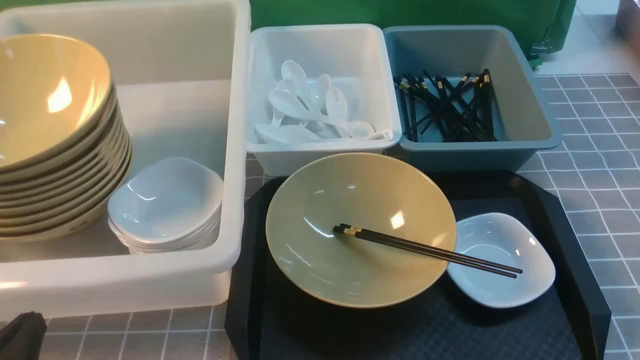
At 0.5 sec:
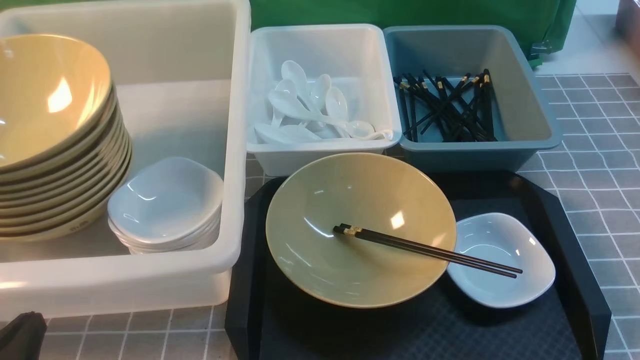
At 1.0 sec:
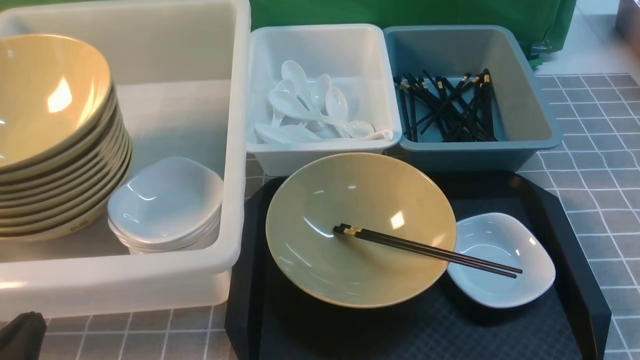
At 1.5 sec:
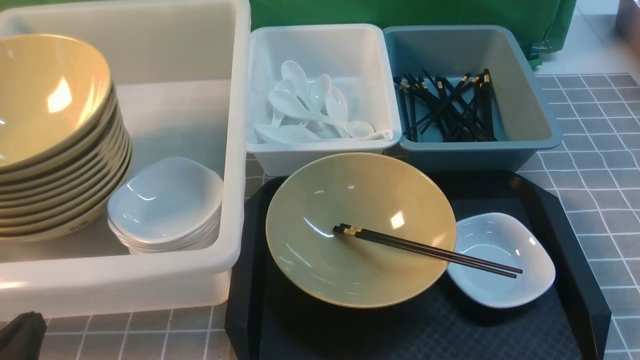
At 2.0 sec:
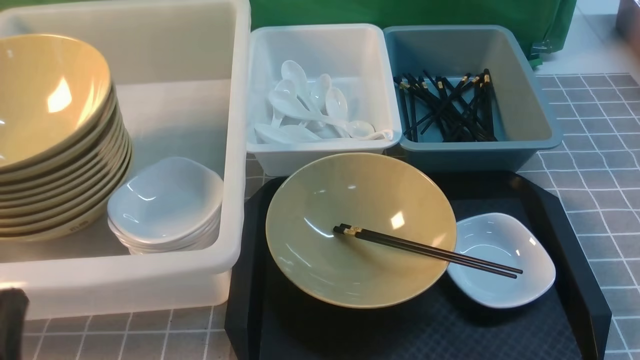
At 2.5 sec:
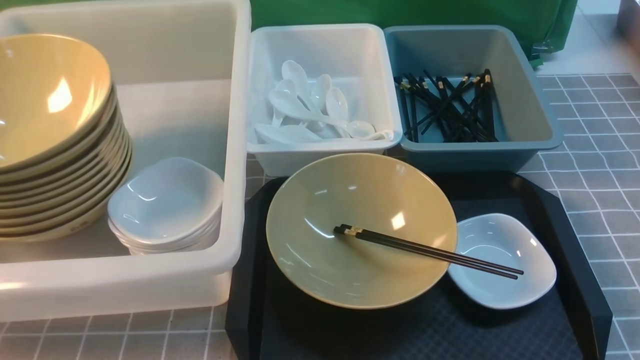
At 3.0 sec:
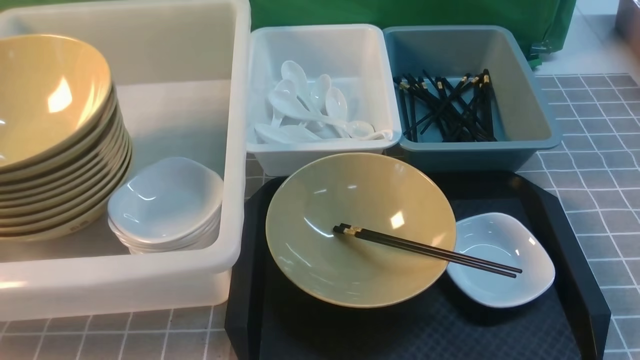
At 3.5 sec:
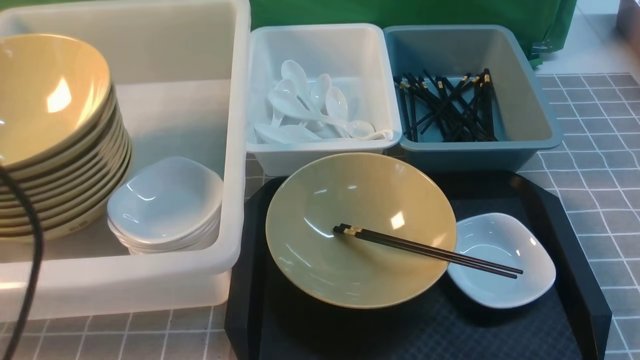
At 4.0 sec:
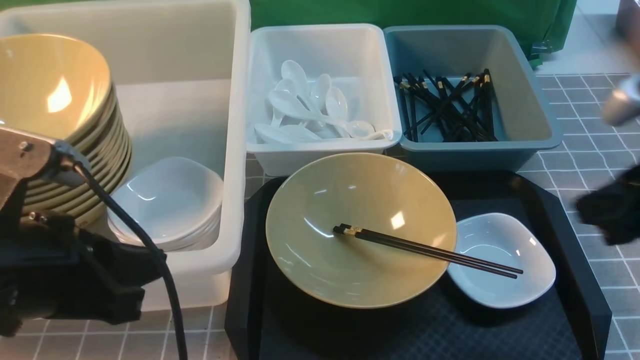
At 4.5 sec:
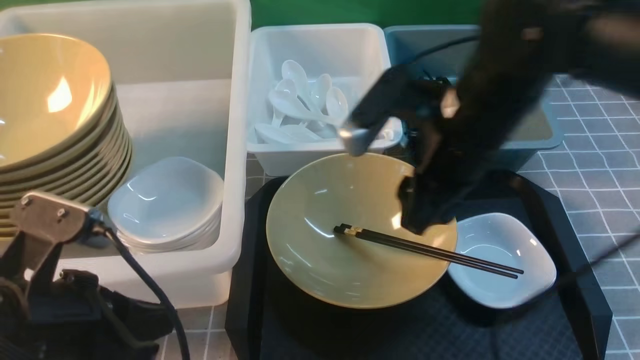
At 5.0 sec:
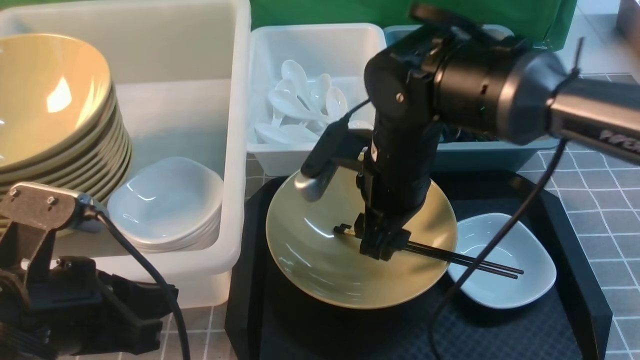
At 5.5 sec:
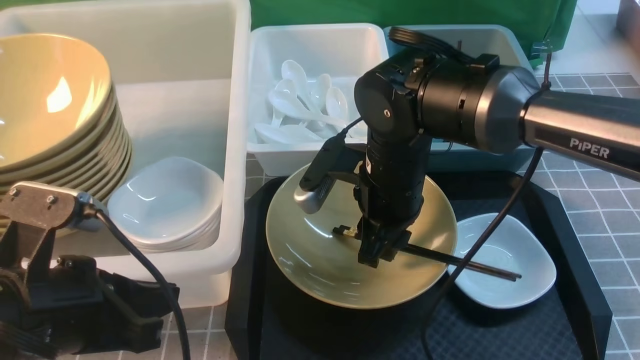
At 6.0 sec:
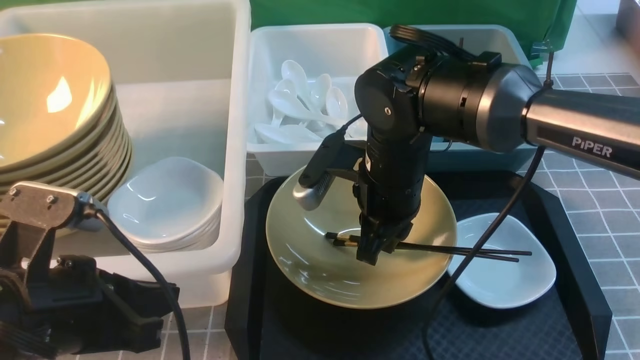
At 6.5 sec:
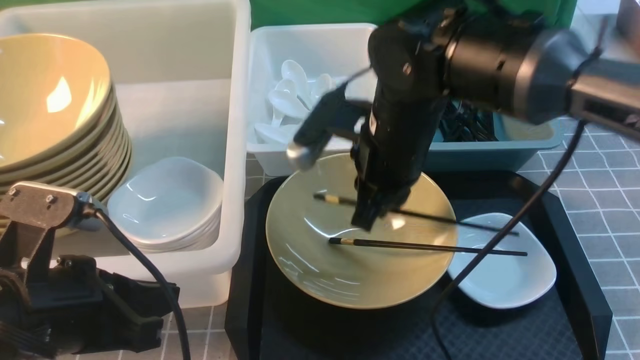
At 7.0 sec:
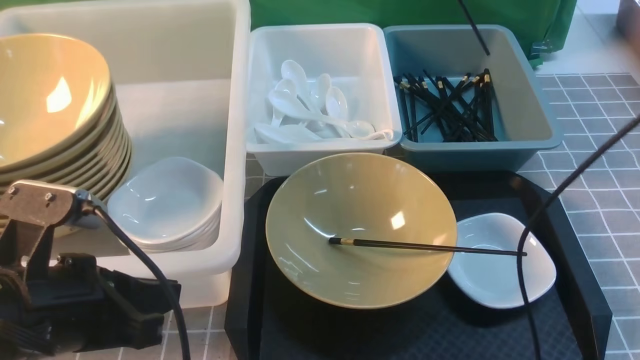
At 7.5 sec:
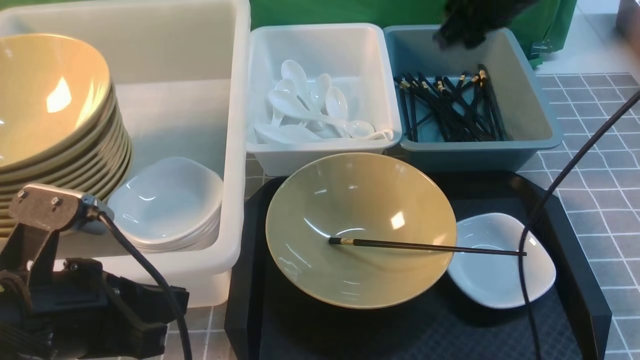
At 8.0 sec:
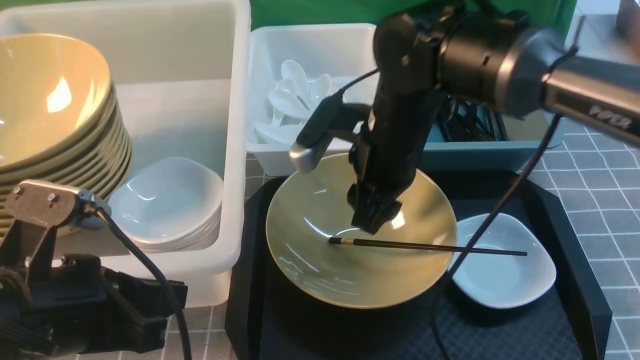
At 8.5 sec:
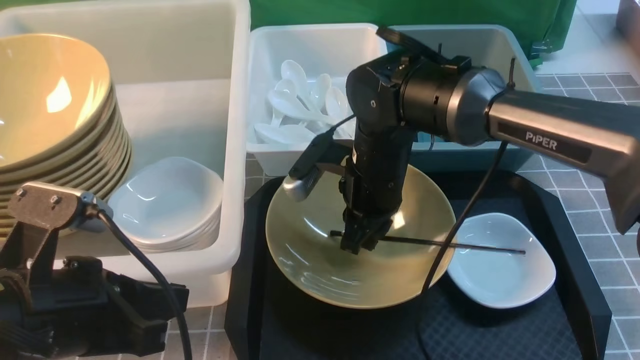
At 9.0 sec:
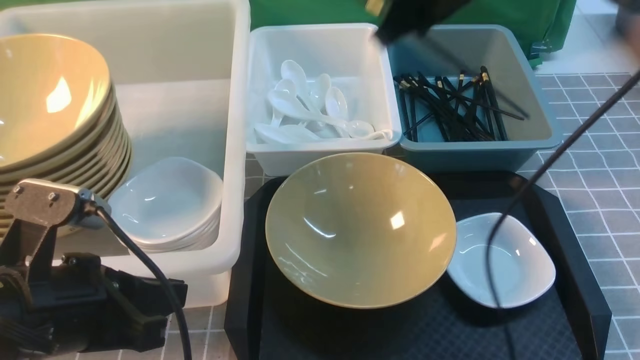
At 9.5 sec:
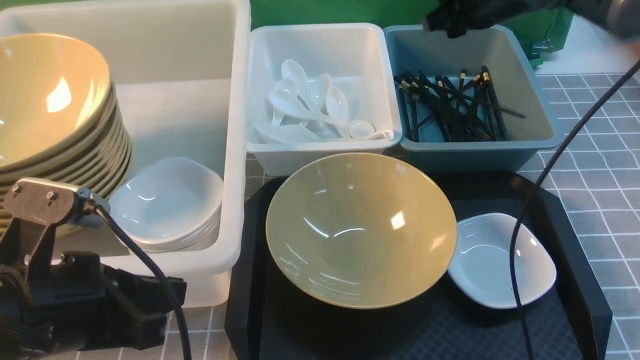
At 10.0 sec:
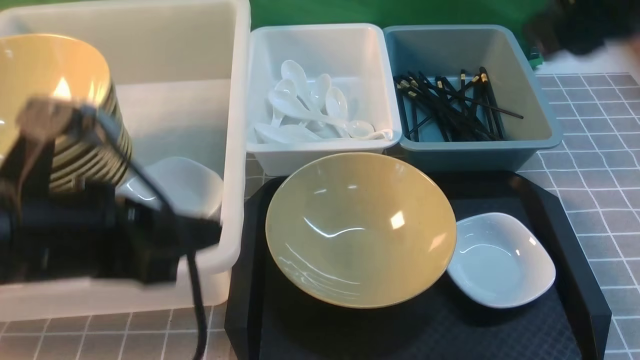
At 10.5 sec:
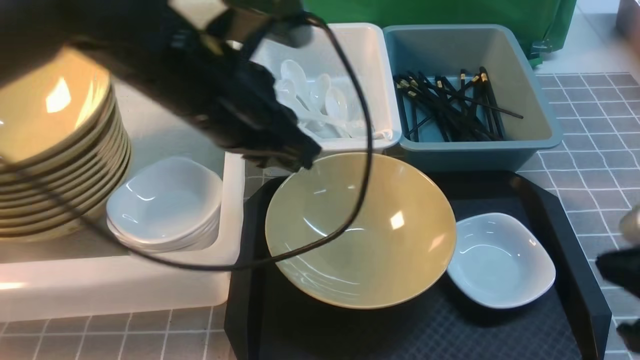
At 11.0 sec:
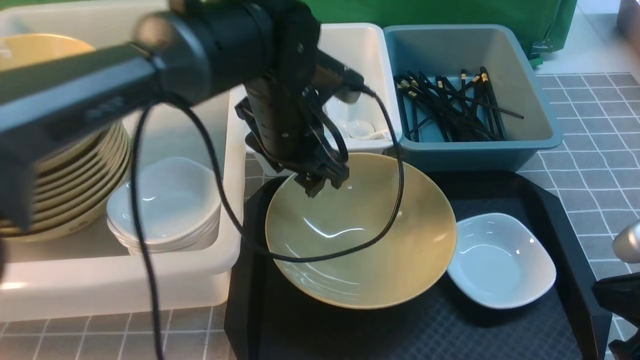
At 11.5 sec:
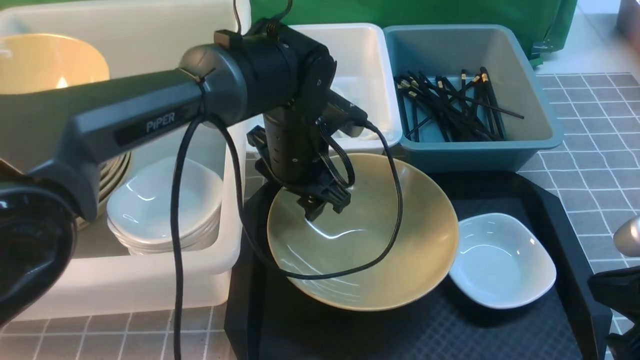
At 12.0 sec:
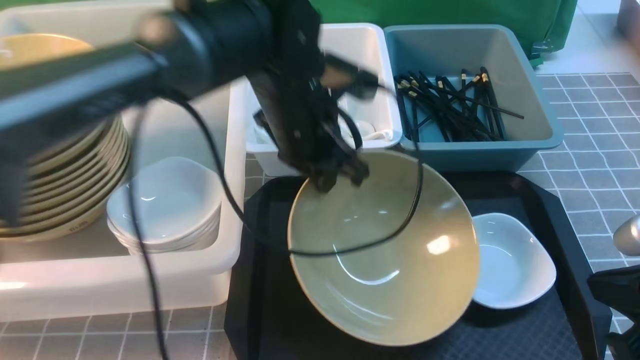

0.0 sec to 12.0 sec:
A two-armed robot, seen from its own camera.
Task of the whole recording: on grey table put chopsticks spoon bowls plates into blue grey white boxes.
Step, 0.0 sec to 6.5 sec: use the right arm to grab a chopstick.
Step, 7.0 sec to 7.5 sec: use the right arm to put a chopstick into the small storage box on the right.
Step, 8.0 sec to 8.5 sec: use the right arm to grab a chopstick.
Step, 9.0 sec to 9.5 sec: use the right arm to put a chopstick into the small storage box on the right.
2.0 sec to 4.0 sec: The right gripper is displaced forward, upward and to the left by roughly 20 cm, and closes. Meanwhile the left gripper shifts some 15 cm upward, forward and to the right.
4.0 sec to 6.0 sec: The right gripper heads to the left, forward and downward, covering about 25 cm, and opens, then closes once more.
6.0 sec to 8.0 sec: The right gripper reaches approximately 15 cm upward, then returns, and opens up.
8.0 sec to 10.0 sec: The right gripper is displaced to the right, upward and backward by roughly 25 cm, and closes, then opens again; the left gripper shifts some 5 cm upward.
10.0 sec to 12.0 sec: The right gripper moves downward and backward, some 20 cm, and closes its fingers. Meanwhile the left gripper shifts roughly 20 cm forward and to the right, and opens, then closes once more.

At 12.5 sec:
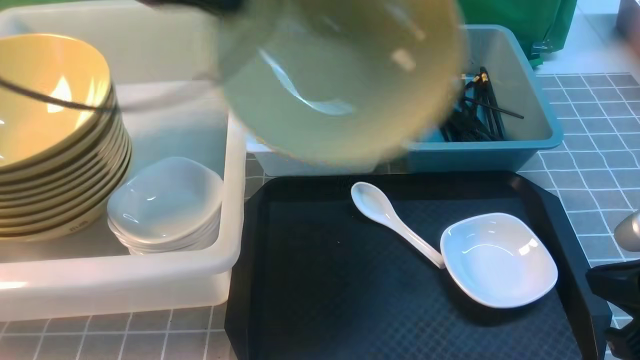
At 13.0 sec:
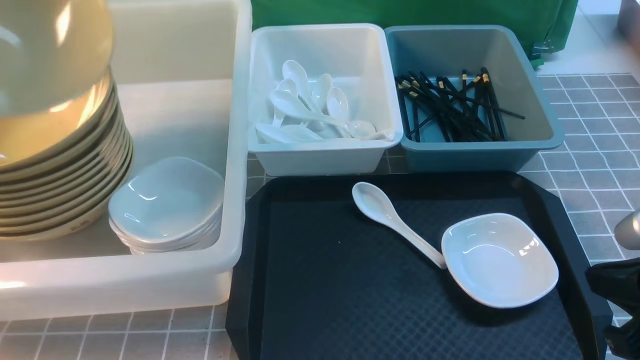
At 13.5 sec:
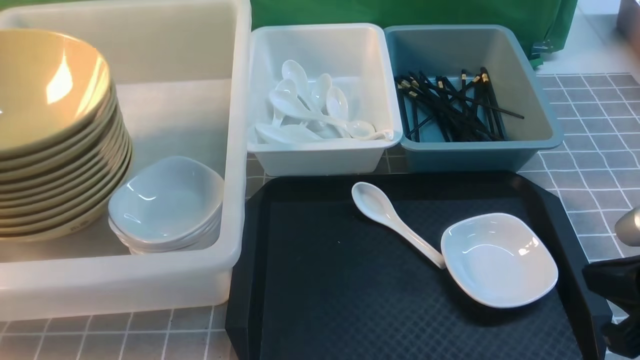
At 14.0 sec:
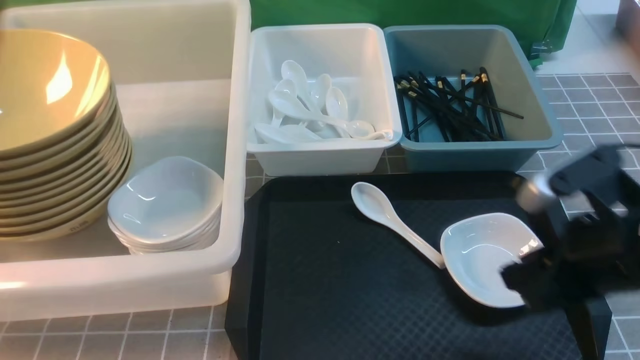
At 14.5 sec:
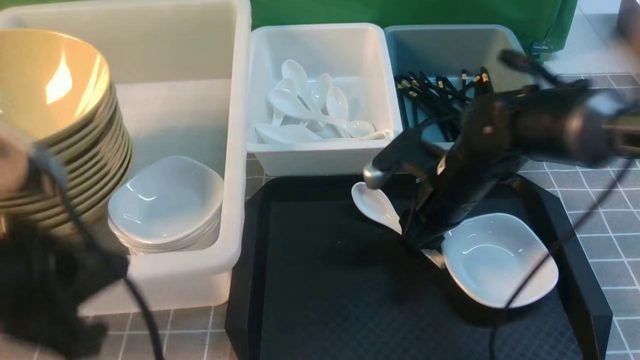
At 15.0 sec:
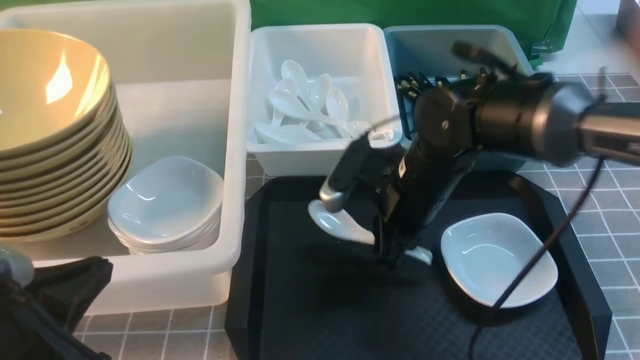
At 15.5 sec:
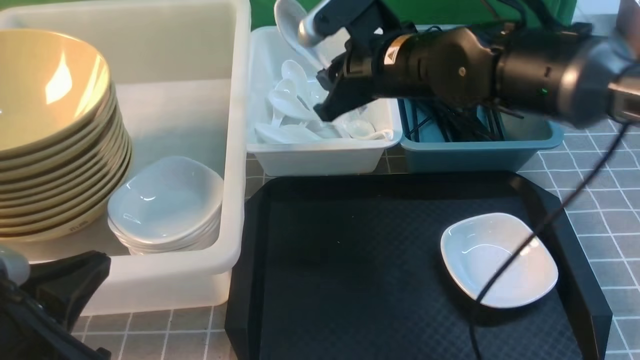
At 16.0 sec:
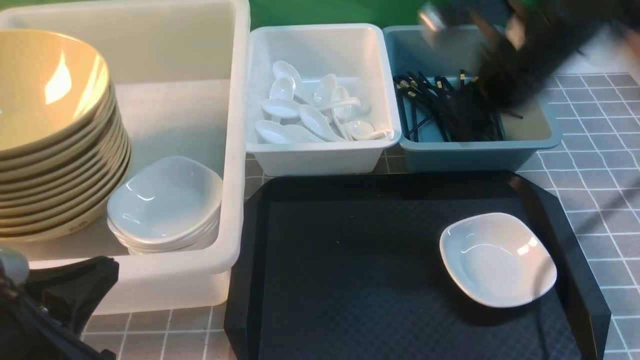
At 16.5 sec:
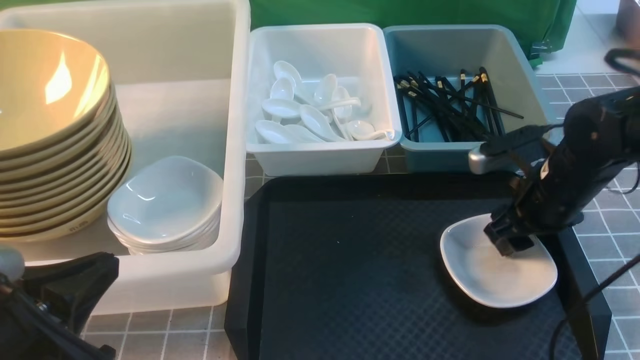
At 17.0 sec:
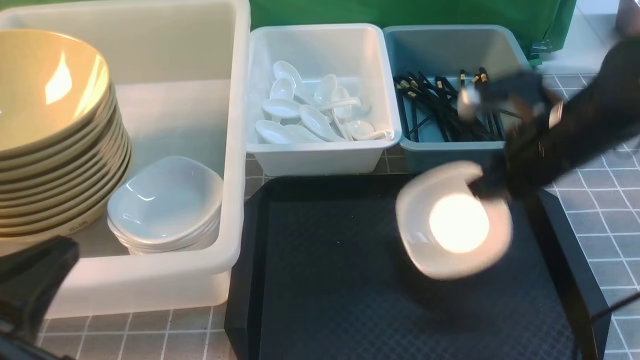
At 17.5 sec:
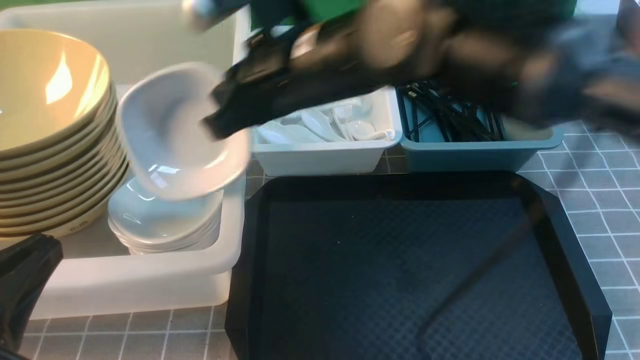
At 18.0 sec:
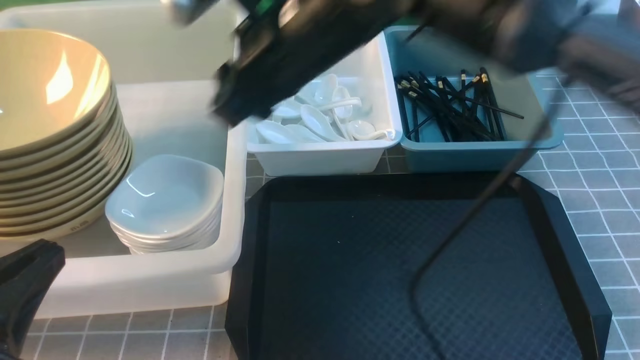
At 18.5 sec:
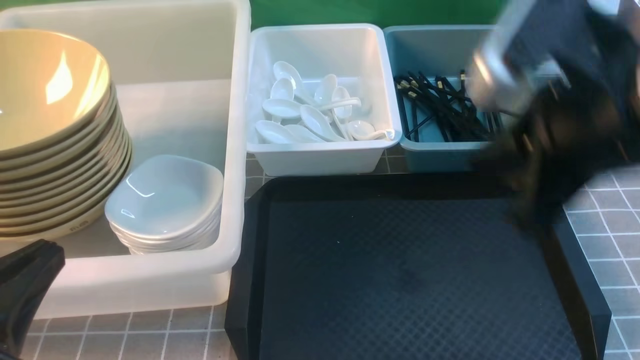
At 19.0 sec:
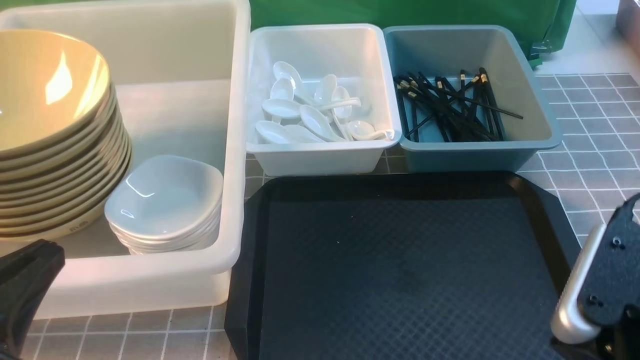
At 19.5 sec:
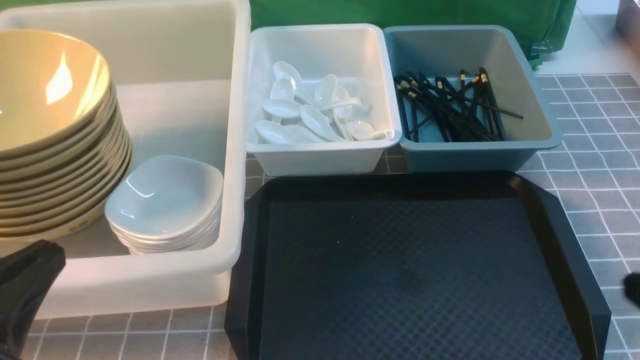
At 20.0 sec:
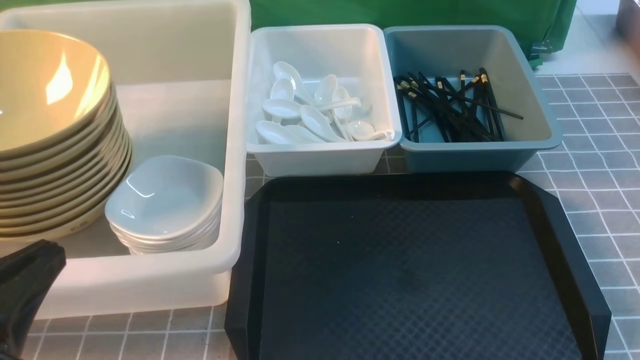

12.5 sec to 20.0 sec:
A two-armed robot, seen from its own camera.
Task of the whole recording: on grey table put chopsticks spoon bowls plates into blue grey white boxes.
Step, 13.0 sec to 13.5 sec: use the left arm to put the noodle bowl into the large storage box on the left.
Step, 14.0 sec to 15.0 sec: use the right arm to grab the soup spoon in the middle.
Step, 16.0 sec to 17.0 sec: use the right arm to grab the plate.
12.5 sec to 14.5 sec: The left gripper moves backward and downward, roughly 25 cm, moves some 20 cm to the left and comes back, and opens, then closes again; the right gripper travels forward, to the left and downward by approximately 25 cm, and opens.
14.5 sec to 16.5 sec: The right gripper shifts about 10 cm to the right. The left gripper shifts roughly 5 cm downward.
16.5 sec to 18.0 sec: The right gripper moves to the left and upward, approximately 30 cm, and closes up.
18.0 sec to 20.0 sec: The right gripper travels to the right, backward and downward by some 40 cm, and closes.
